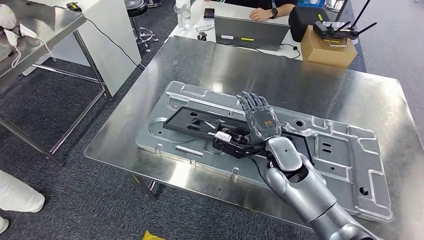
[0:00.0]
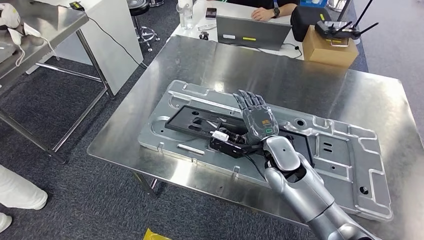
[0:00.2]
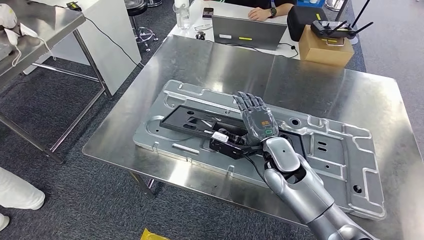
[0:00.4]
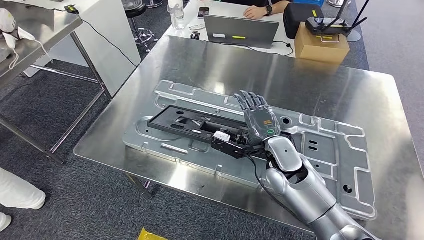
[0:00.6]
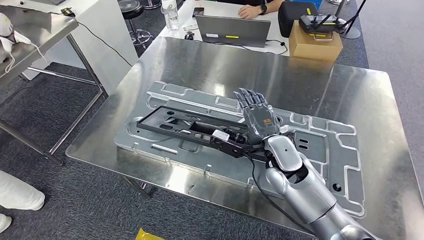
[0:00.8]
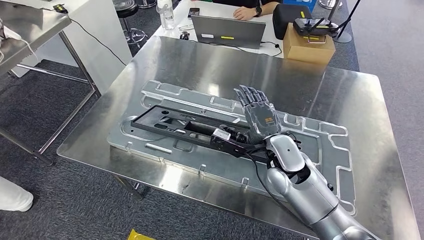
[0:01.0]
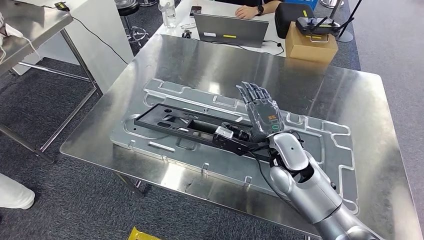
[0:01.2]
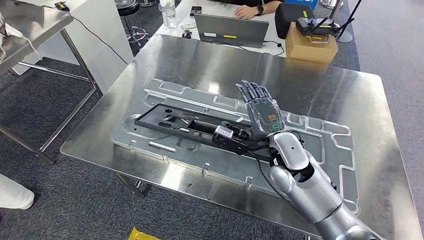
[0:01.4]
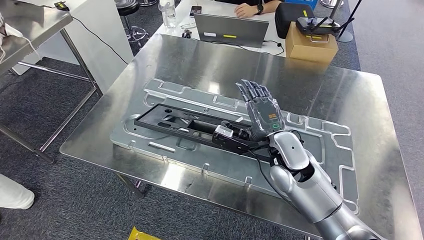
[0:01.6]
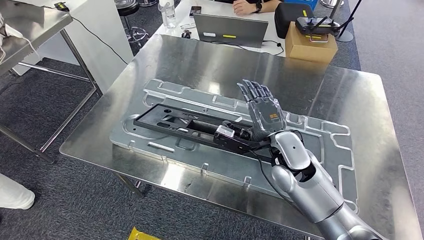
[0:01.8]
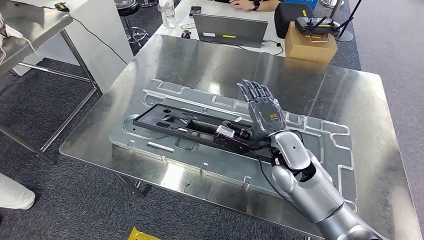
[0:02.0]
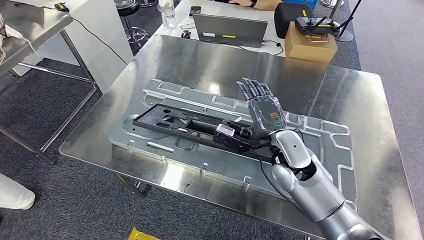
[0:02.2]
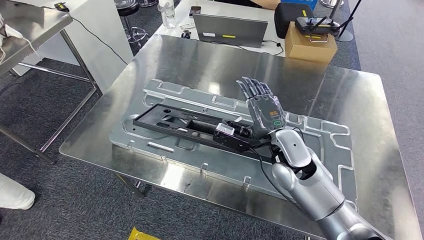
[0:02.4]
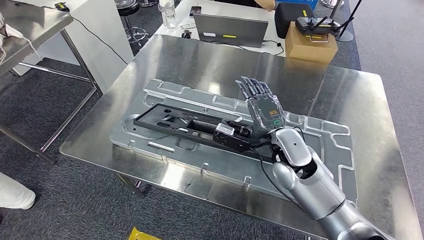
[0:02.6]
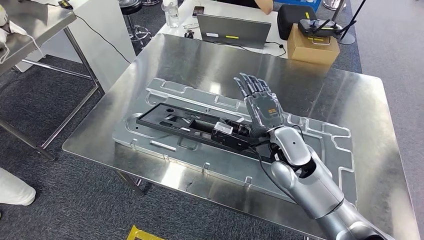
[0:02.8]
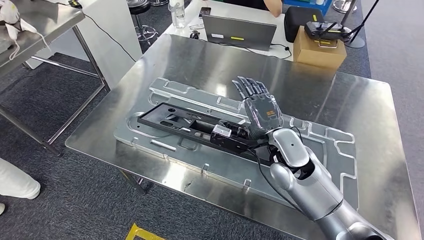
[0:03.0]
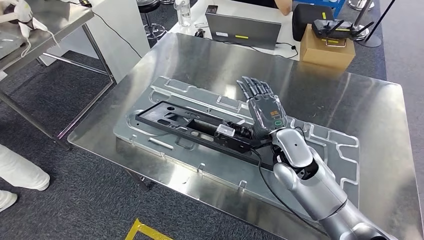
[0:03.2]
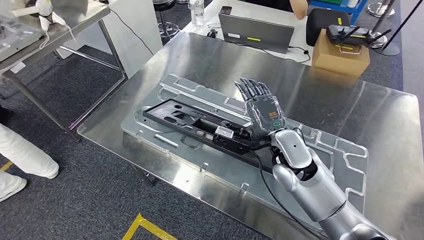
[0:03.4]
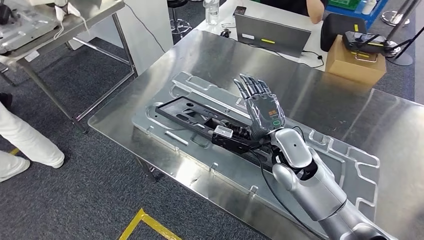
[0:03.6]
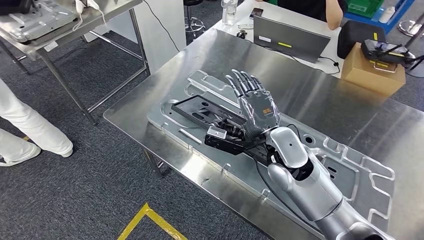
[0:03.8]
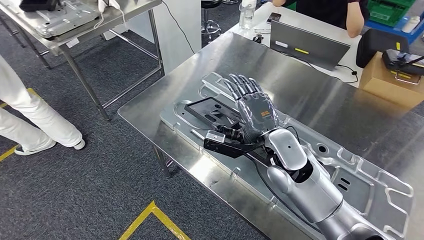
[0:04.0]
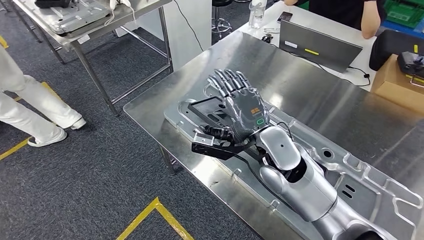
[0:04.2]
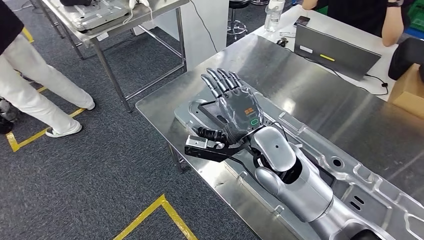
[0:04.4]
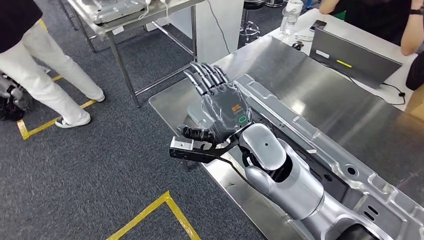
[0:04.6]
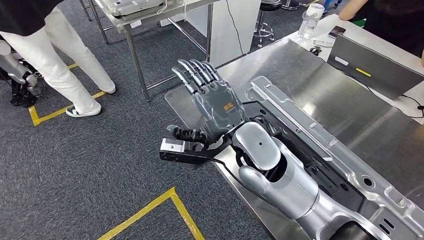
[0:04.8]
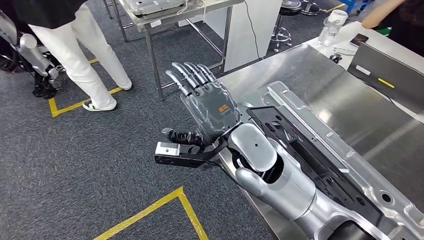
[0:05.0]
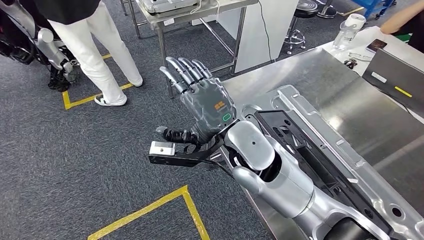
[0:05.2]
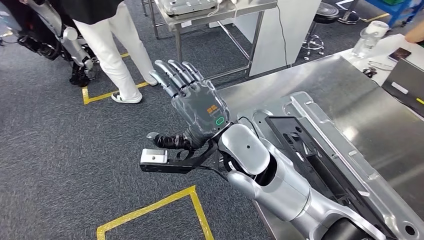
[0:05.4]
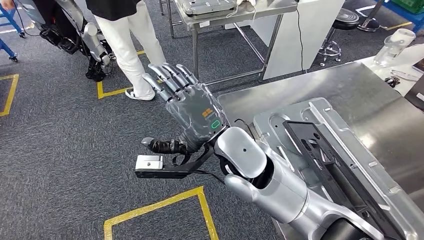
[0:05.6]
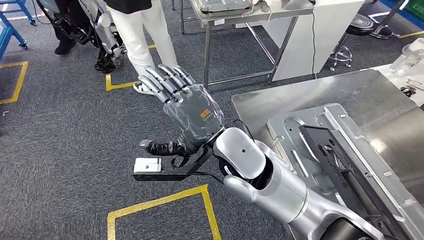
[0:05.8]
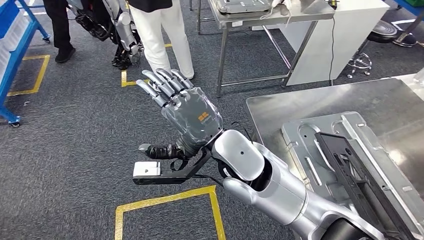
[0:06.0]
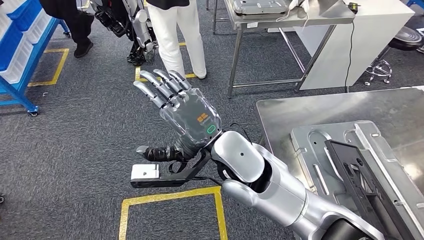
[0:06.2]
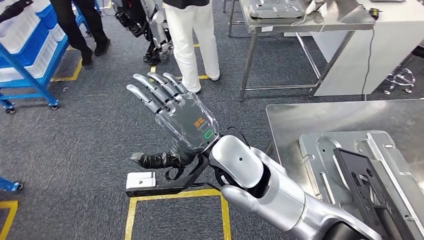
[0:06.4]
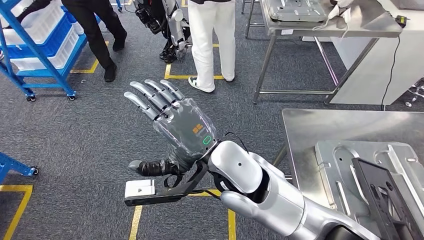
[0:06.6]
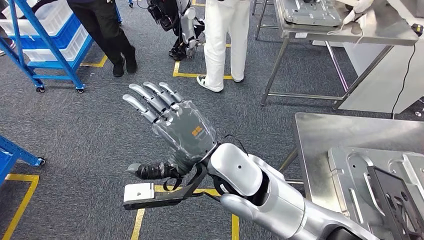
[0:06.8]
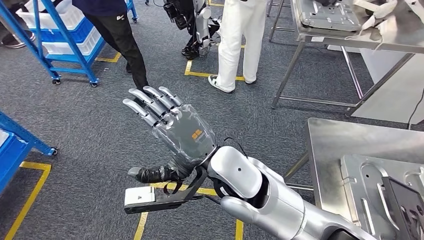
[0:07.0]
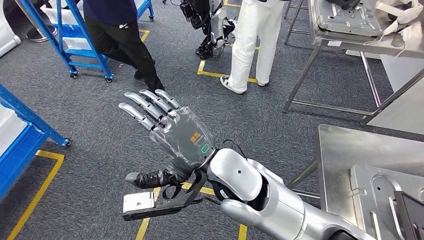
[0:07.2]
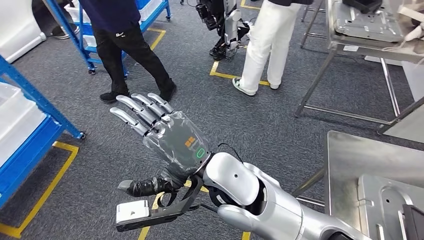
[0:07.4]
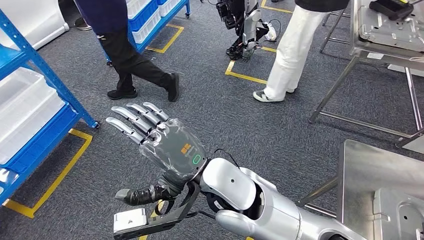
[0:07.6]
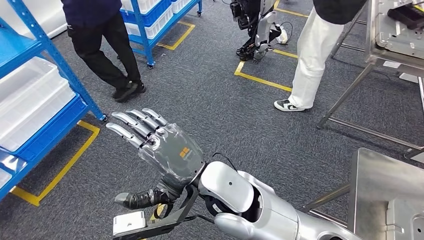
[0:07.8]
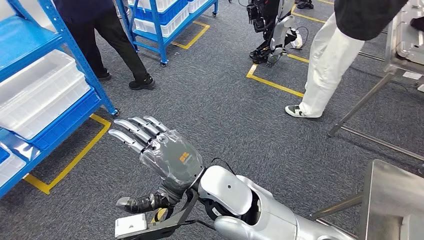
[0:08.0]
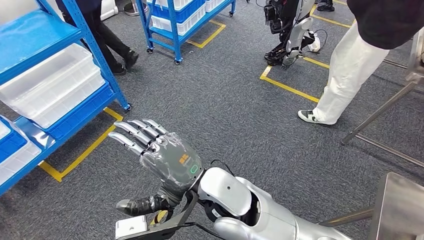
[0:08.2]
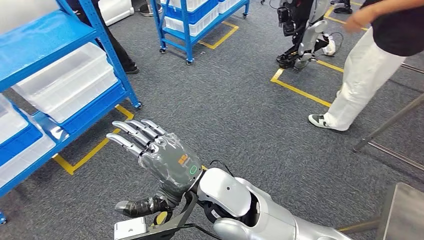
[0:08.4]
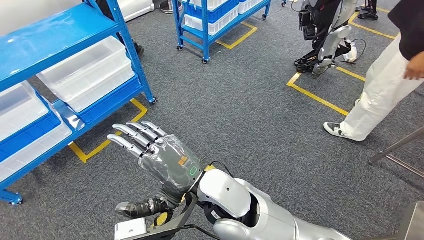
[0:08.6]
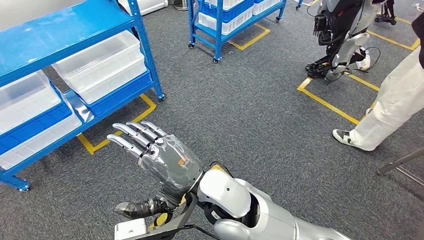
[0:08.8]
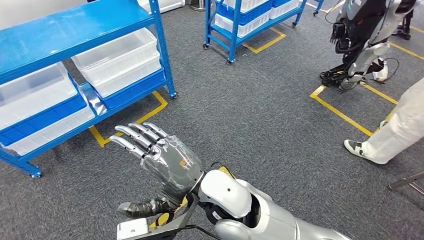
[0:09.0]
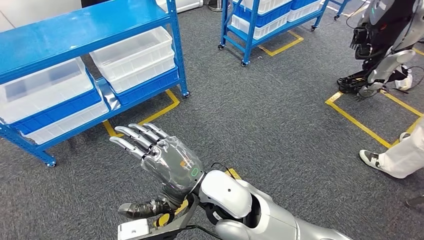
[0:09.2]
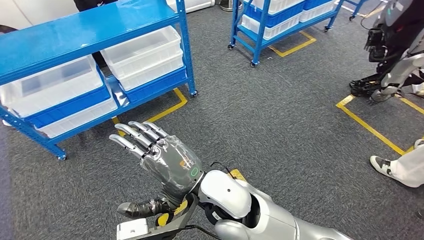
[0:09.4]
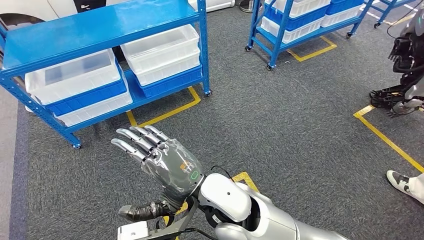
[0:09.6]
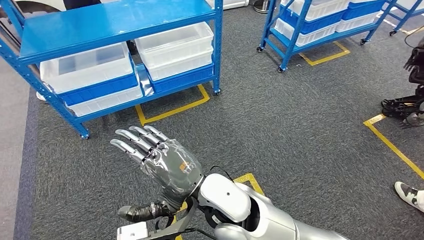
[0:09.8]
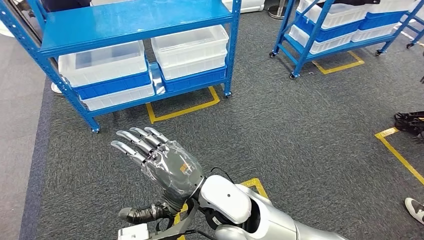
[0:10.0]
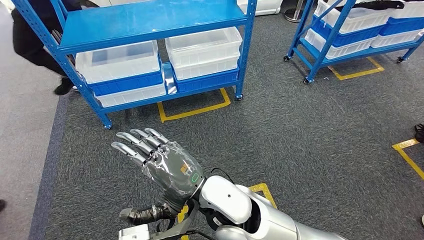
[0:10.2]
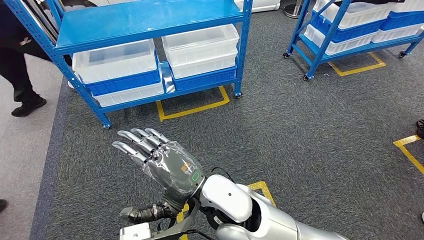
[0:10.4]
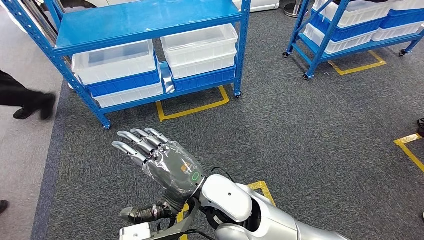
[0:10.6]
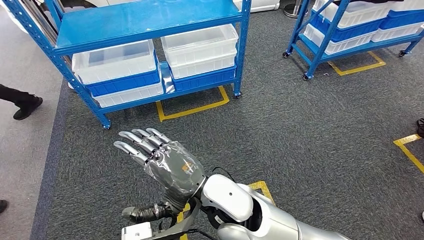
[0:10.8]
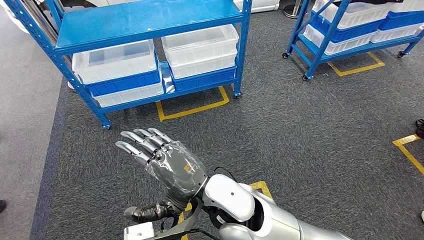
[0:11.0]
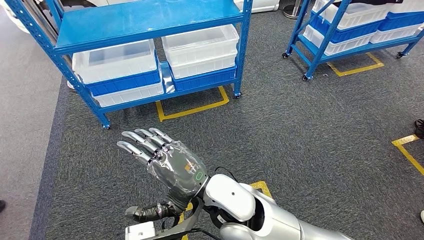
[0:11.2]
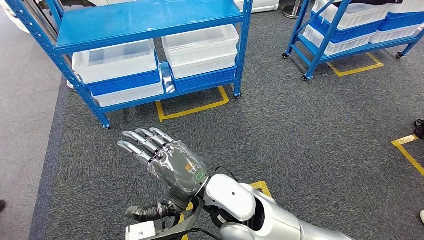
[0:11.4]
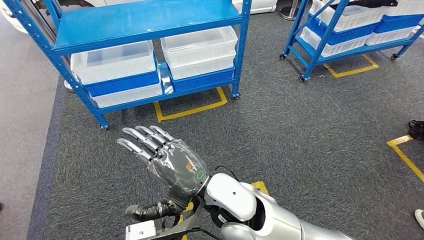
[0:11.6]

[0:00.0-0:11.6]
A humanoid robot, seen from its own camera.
Step, 0:01.6 to 0:11.6: Return to the initial position at the shelf.
0:01.4 to 0:02.8: The hands move only a little.
